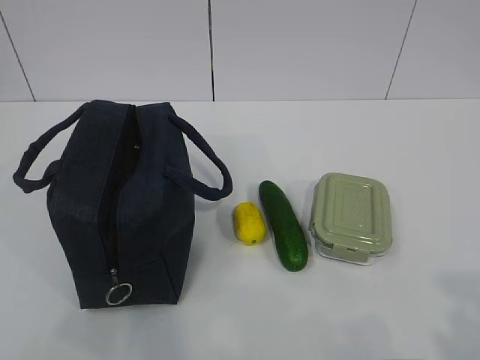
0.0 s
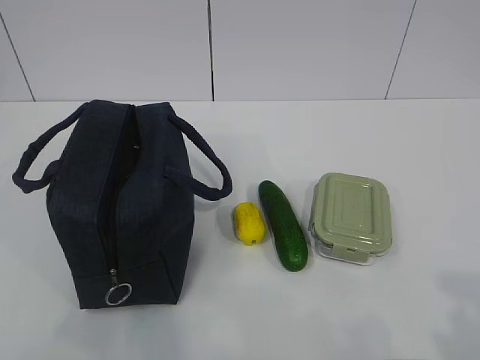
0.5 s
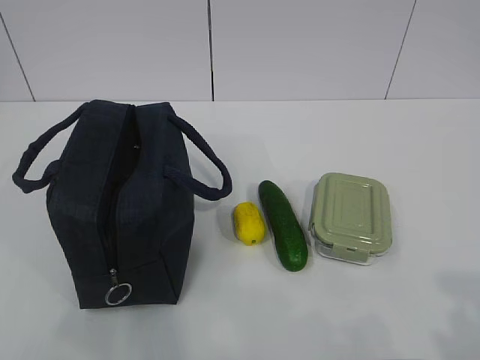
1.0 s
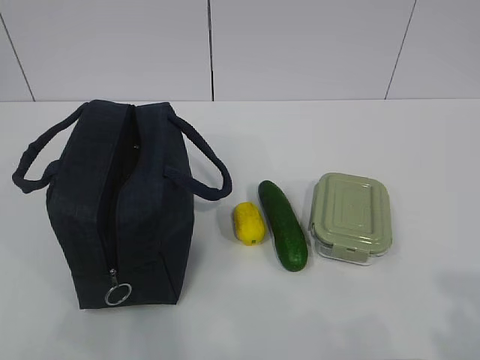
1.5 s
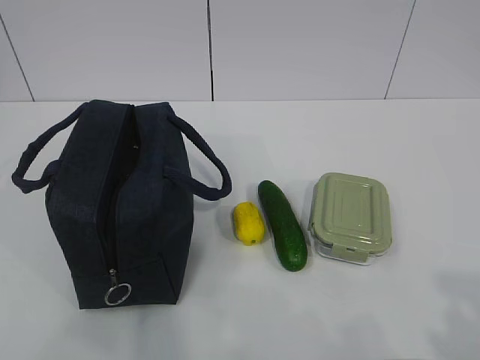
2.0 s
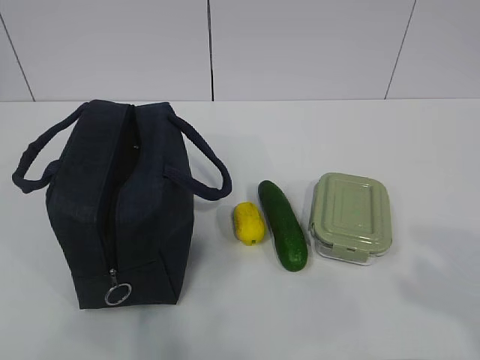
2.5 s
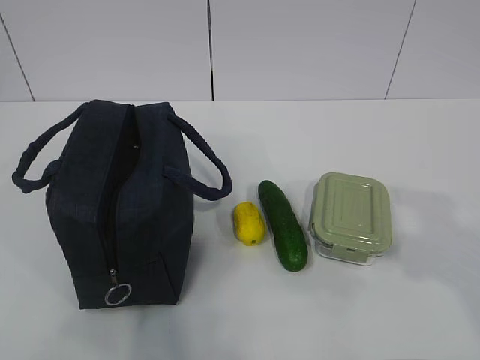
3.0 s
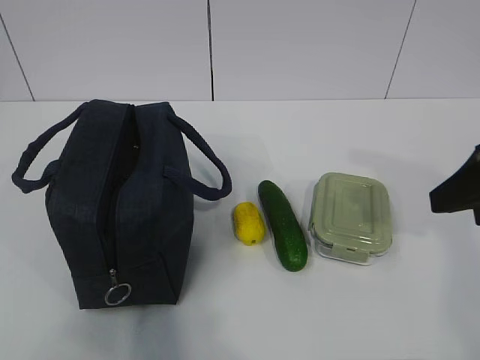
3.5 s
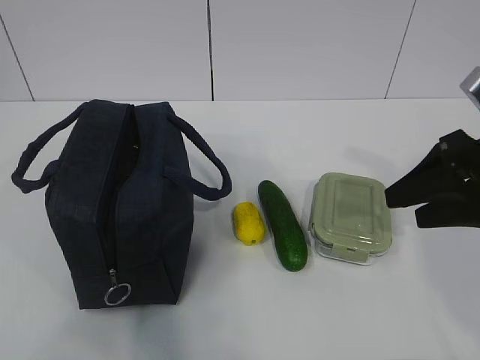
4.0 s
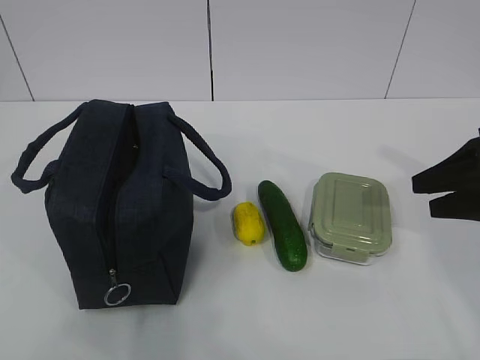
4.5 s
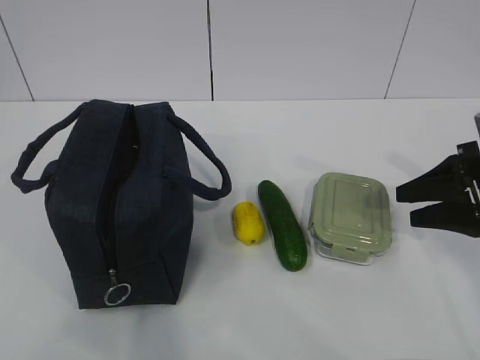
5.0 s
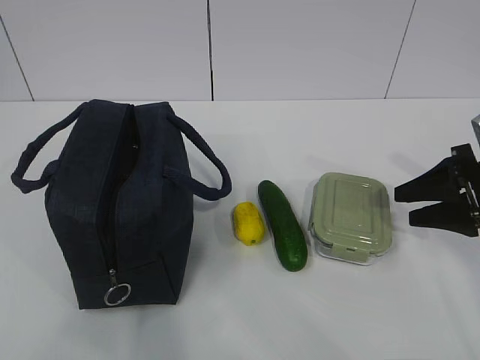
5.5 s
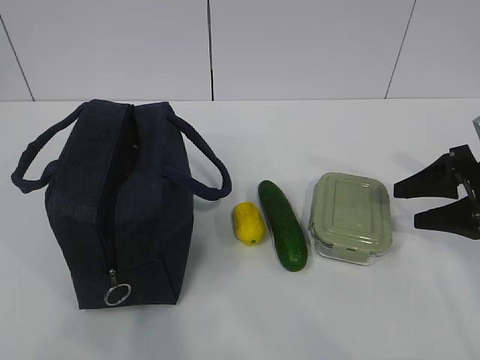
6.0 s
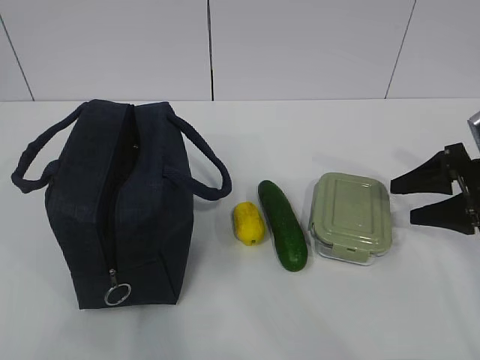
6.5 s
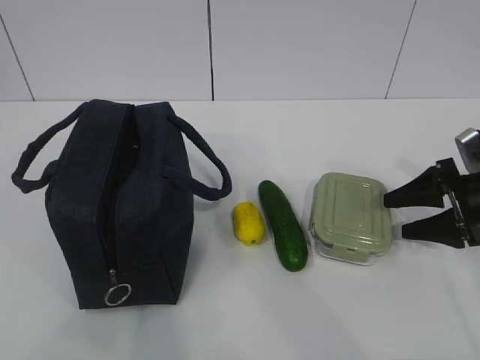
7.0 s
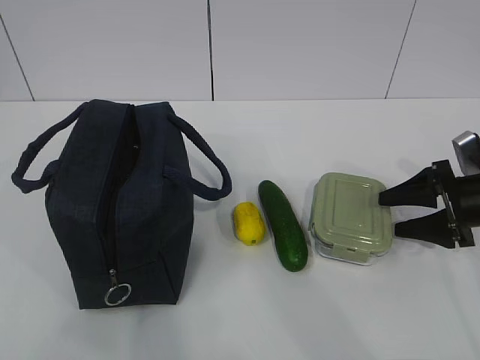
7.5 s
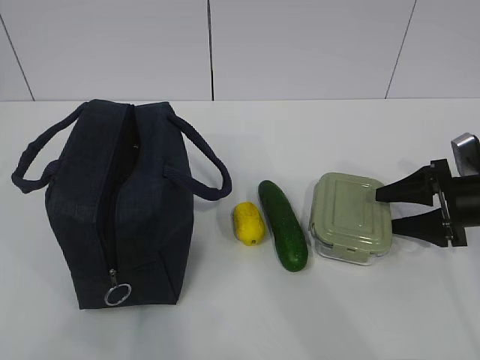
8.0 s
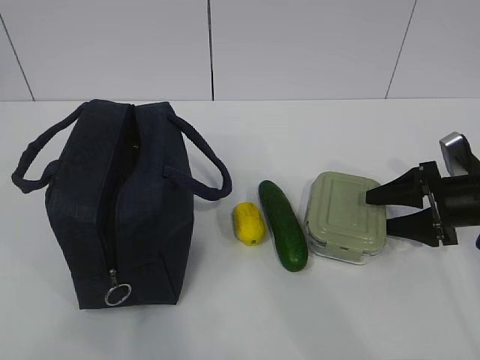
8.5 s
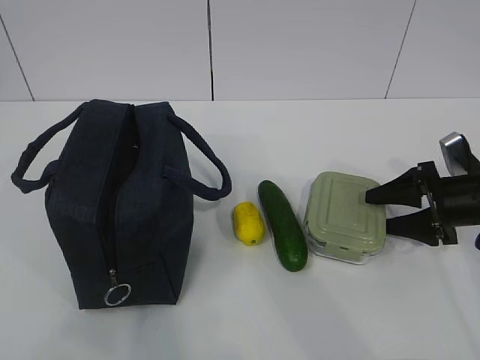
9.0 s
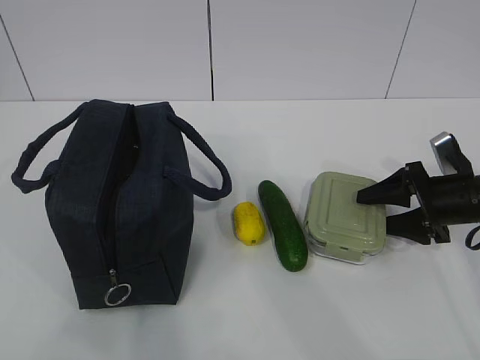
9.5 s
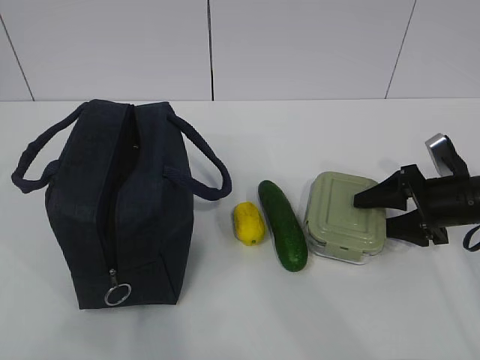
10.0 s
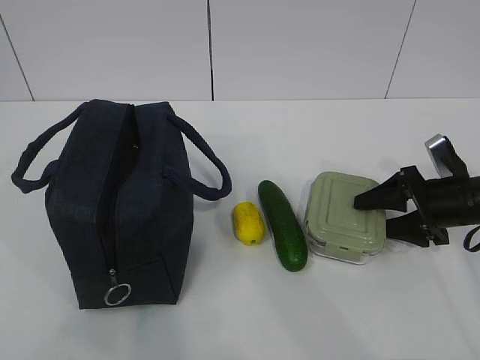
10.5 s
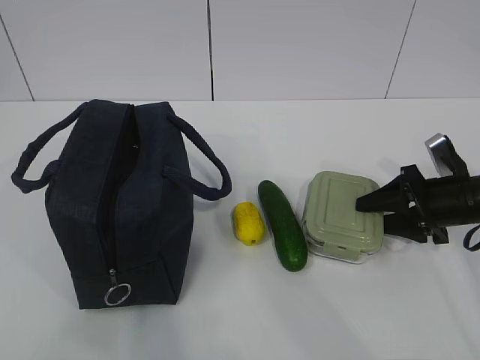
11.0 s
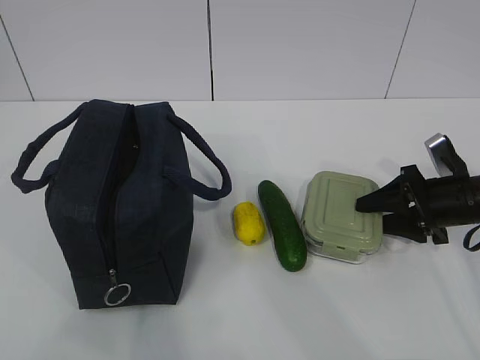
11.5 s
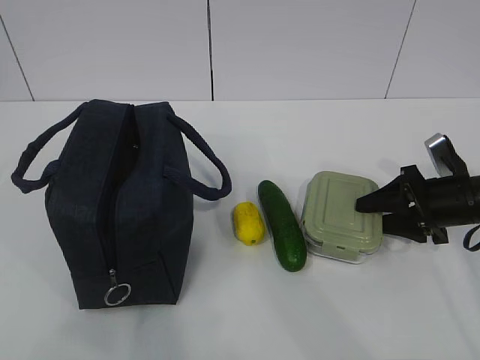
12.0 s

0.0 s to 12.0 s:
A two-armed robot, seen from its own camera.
2.0 to 4.0 s: The right gripper goes some 25 cm forward.
4.0 to 6.0 s: The right gripper heads downward, to the right and forward, covering about 10 cm.
6.0 to 8.0 s: The right gripper heads downward, covering approximately 5 cm.
8.0 to 10.0 s: The grippers make only small movements.
10.0 to 12.0 s: Both grippers stay about where they are.

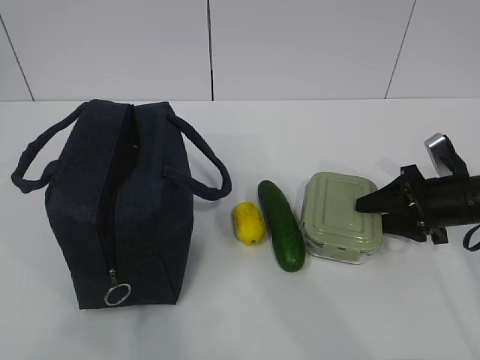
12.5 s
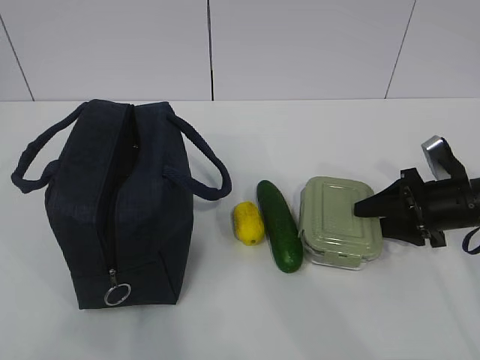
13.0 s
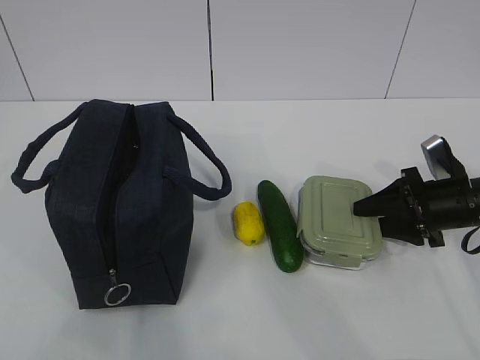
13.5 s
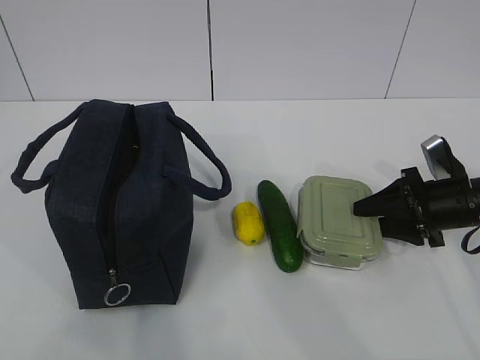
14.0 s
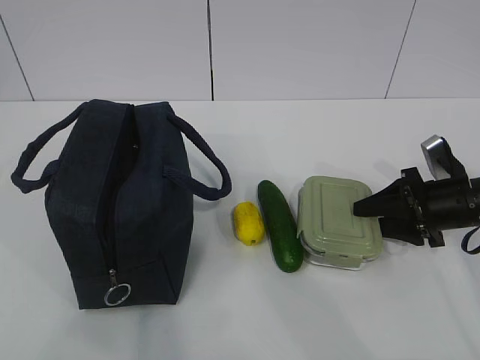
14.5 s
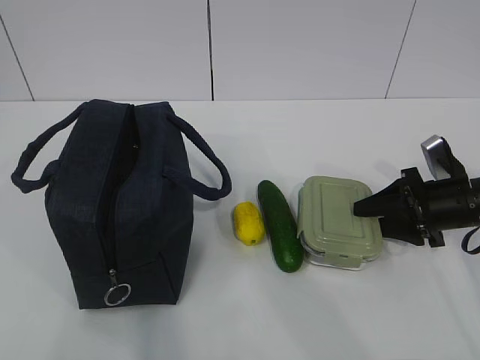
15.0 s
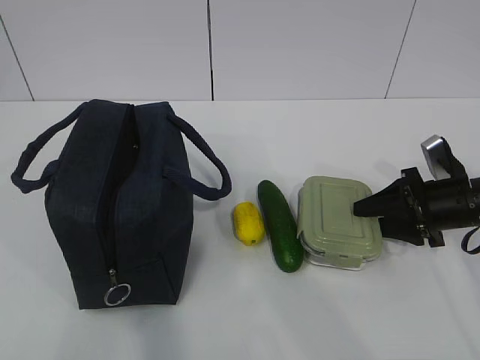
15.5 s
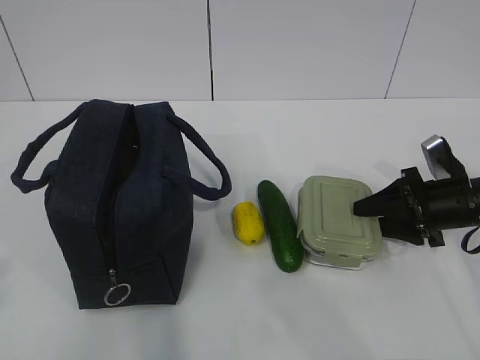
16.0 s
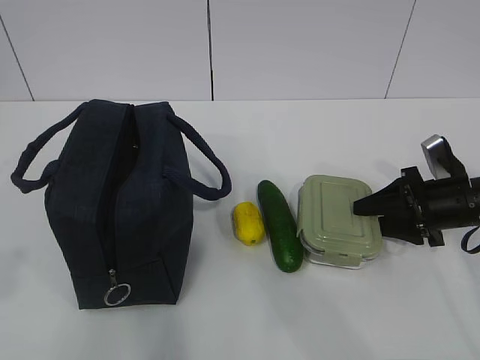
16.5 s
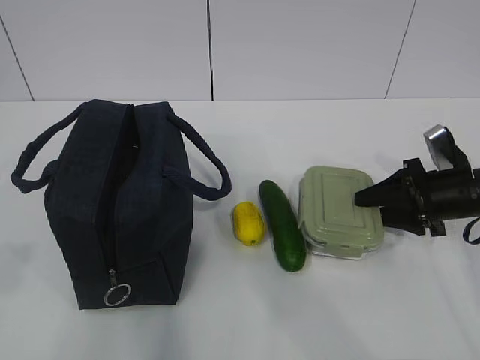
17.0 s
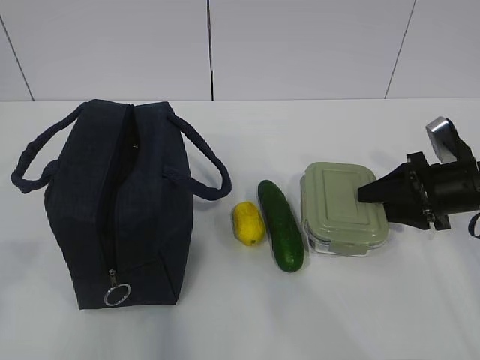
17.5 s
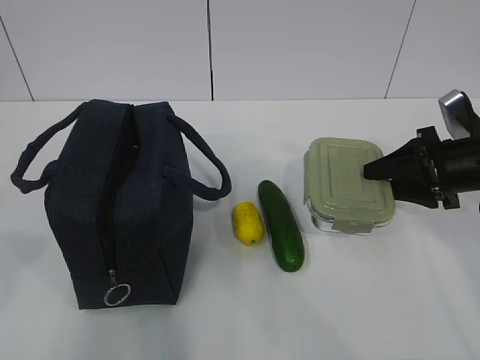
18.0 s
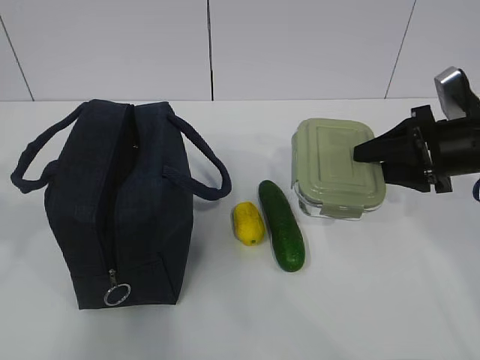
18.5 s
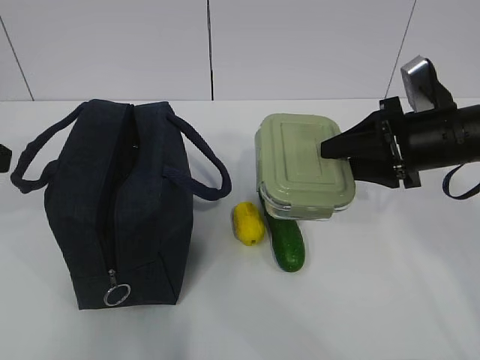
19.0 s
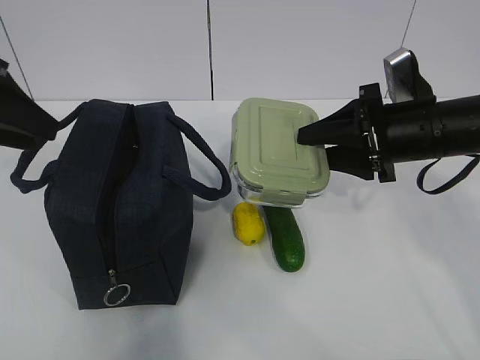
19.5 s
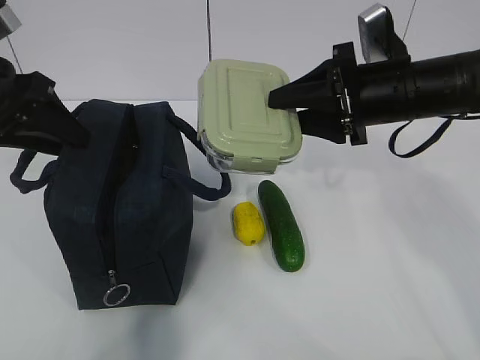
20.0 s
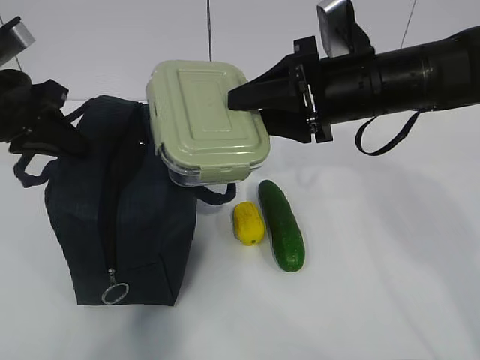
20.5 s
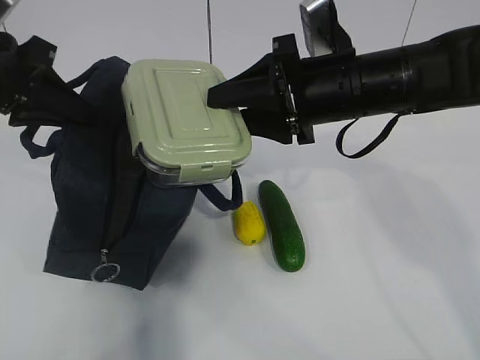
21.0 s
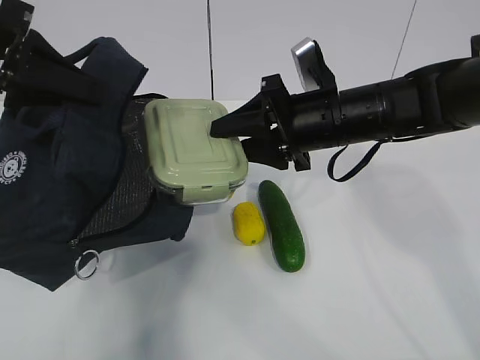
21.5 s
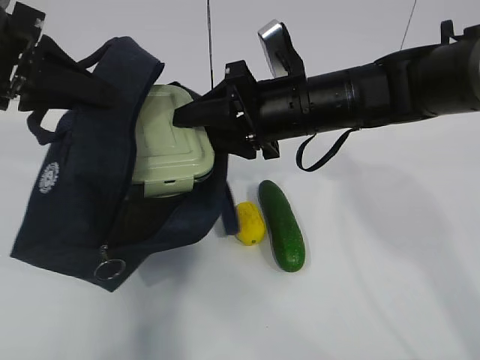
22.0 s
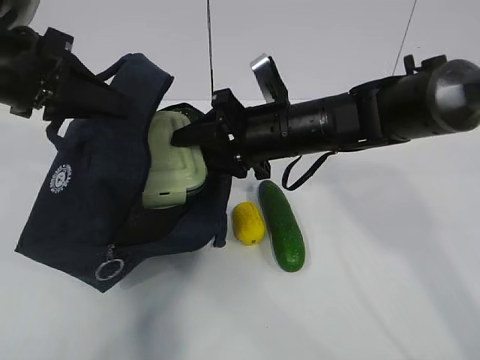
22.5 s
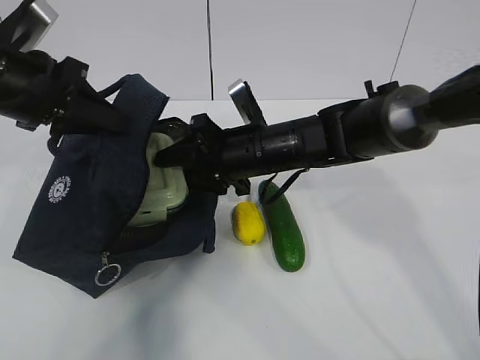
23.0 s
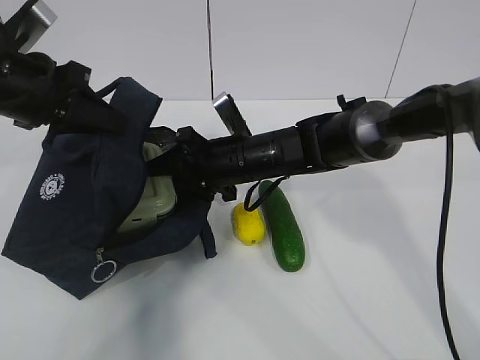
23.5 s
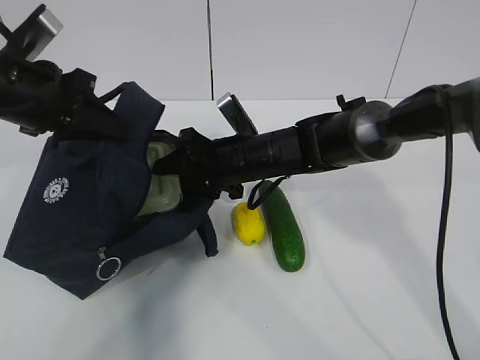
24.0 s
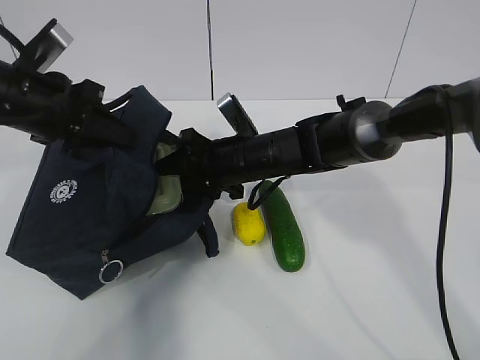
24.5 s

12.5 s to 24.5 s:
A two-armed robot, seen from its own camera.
Step, 14.5 to 17.0 s: Grab the lunch bag with your left hand.
Step, 17.5 to 20.5 s: Place it into the bag with your right hand.
Step, 21.0 to 24.0 s: Grab the cucumber with your right hand.
12.5 to 14.5 s: Neither gripper changes place.
16.5 to 18.5 s: The left gripper is displaced forward by approximately 10 cm. The right gripper goes some 10 cm upward.
18.5 to 20.5 s: The left gripper shifts roughly 20 cm forward, and closes up. The right gripper goes some 15 cm to the left and upward.
20.5 to 22.5 s: The right gripper moves to the left and downward, approximately 10 cm.
22.5 to 24.5 s: Both grippers travel together downward, about 5 cm.

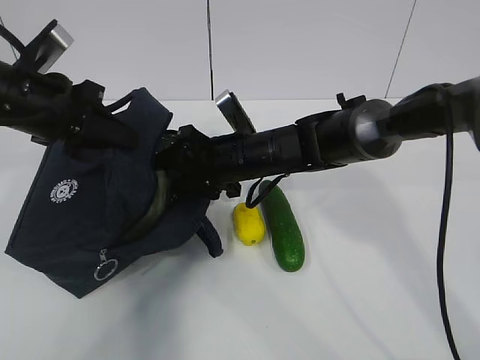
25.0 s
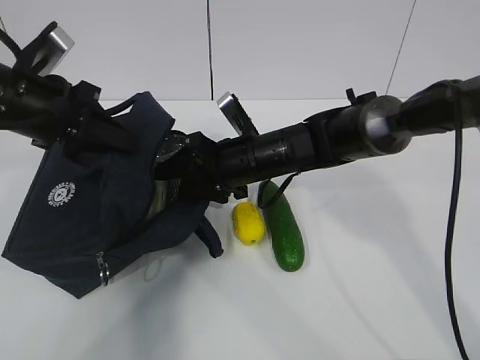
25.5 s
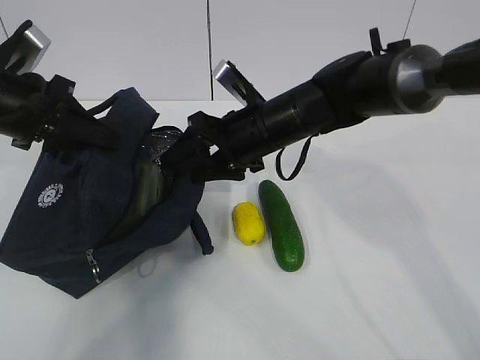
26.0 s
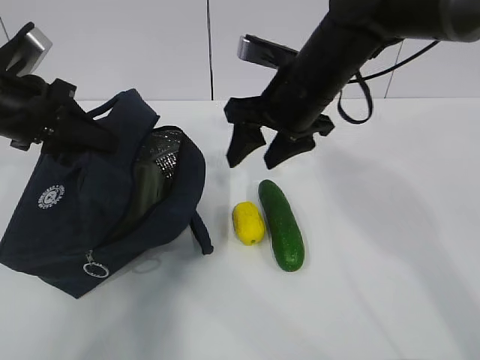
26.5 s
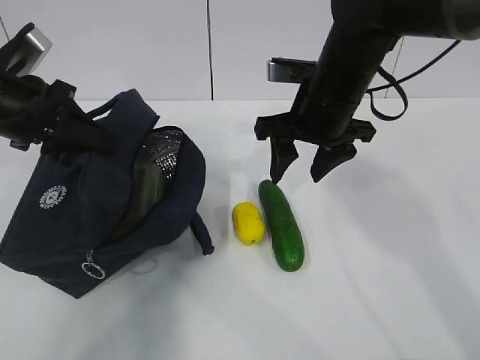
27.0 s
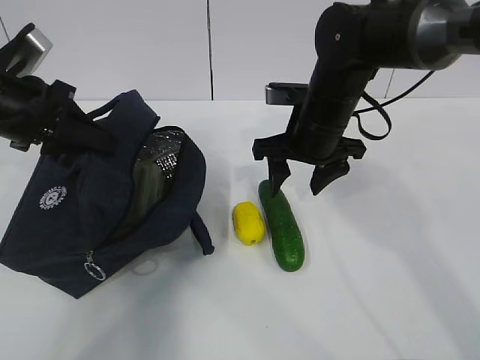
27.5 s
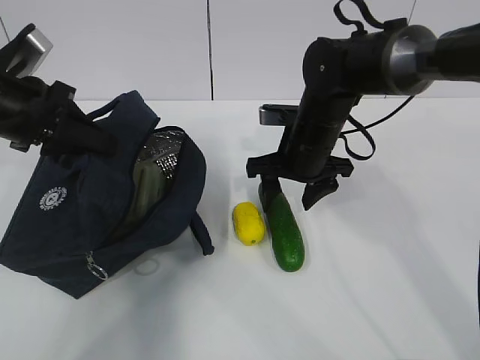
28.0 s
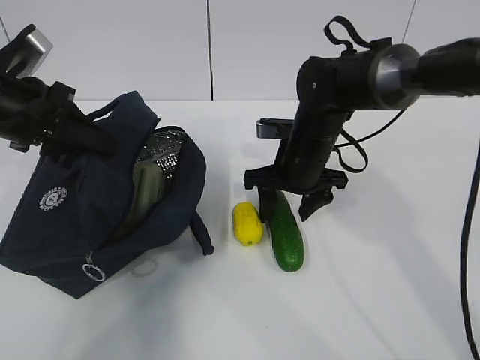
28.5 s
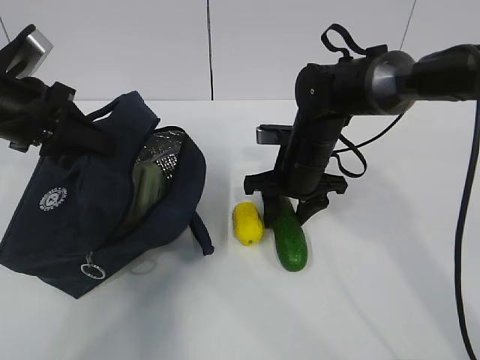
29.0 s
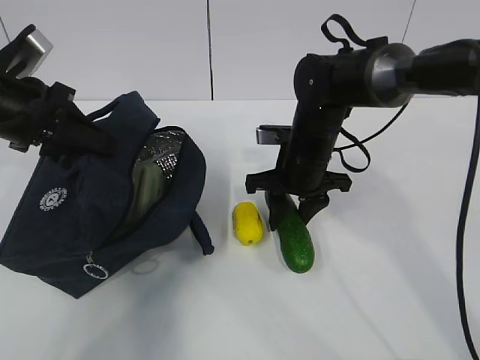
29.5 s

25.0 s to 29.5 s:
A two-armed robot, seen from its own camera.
Step, 25.0 to 27.0 s: Place it into the bag with your right hand.
25.0 to 27.0 s: The right gripper is displaced upward and to the right by approximately 15 cm.
27.0 to 29.5 s: The right gripper goes approximately 10 cm downward.
